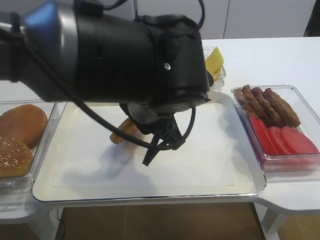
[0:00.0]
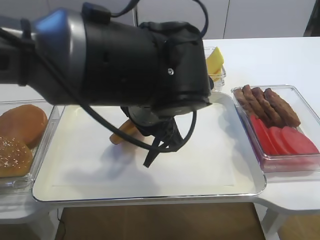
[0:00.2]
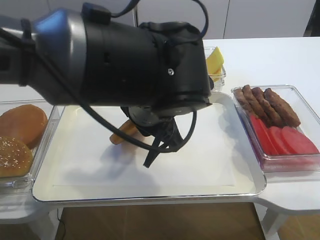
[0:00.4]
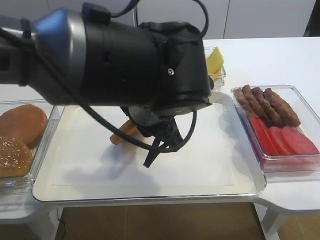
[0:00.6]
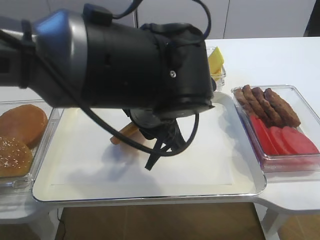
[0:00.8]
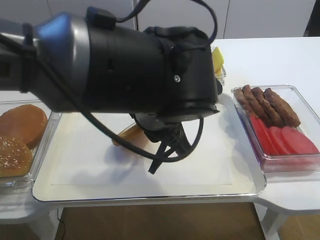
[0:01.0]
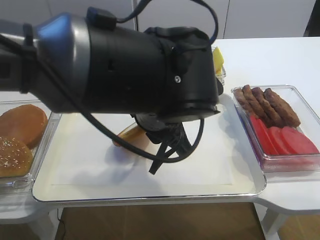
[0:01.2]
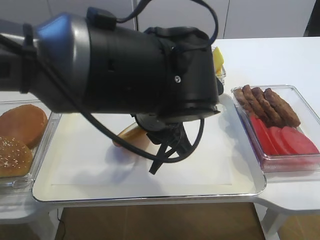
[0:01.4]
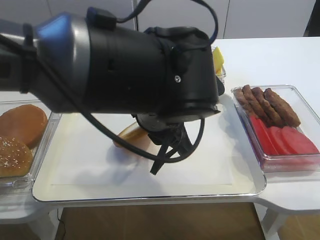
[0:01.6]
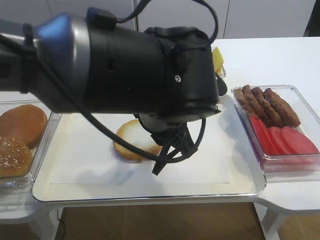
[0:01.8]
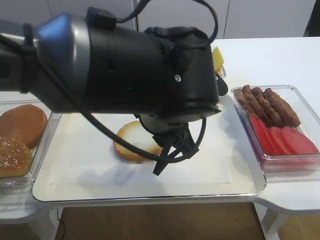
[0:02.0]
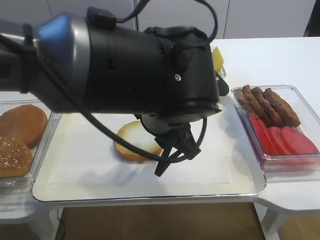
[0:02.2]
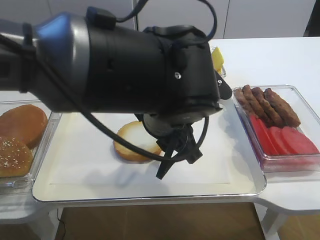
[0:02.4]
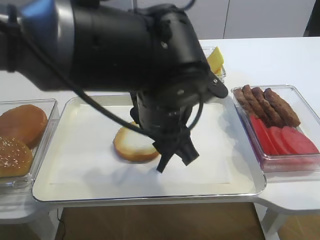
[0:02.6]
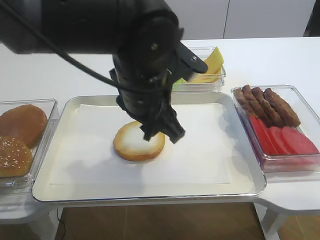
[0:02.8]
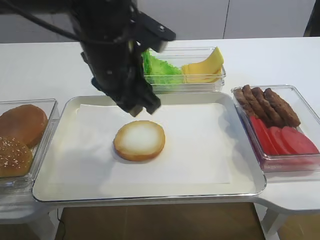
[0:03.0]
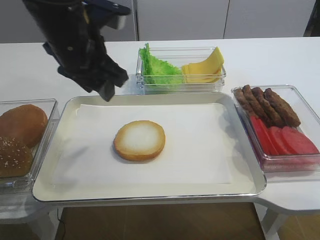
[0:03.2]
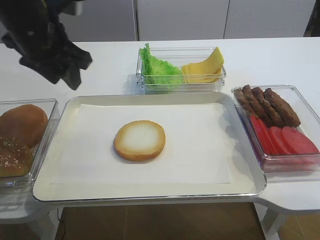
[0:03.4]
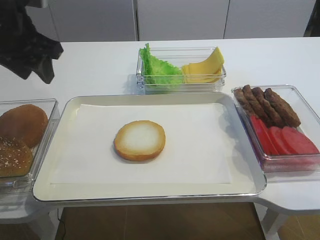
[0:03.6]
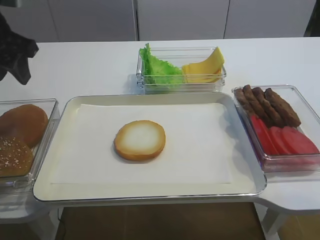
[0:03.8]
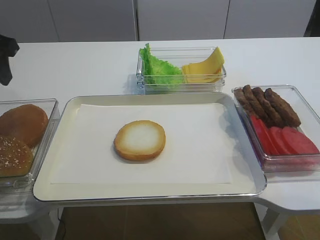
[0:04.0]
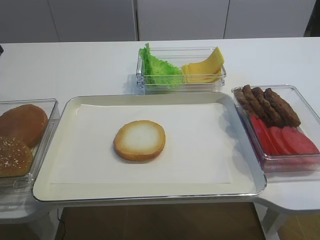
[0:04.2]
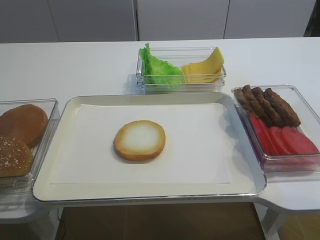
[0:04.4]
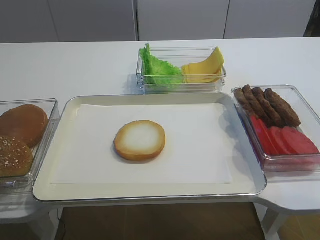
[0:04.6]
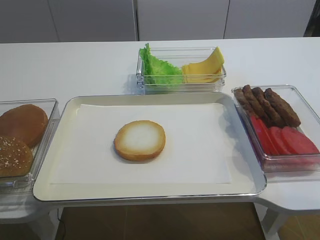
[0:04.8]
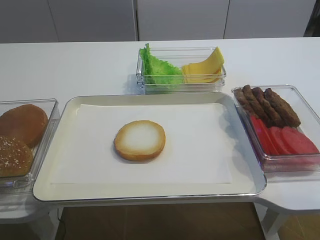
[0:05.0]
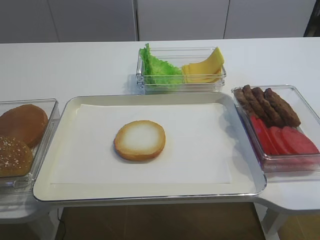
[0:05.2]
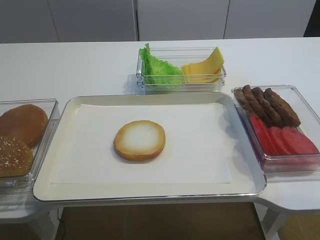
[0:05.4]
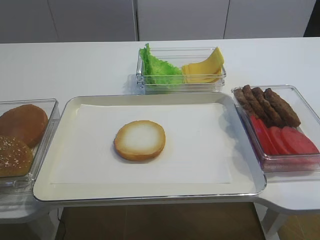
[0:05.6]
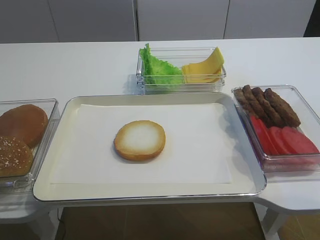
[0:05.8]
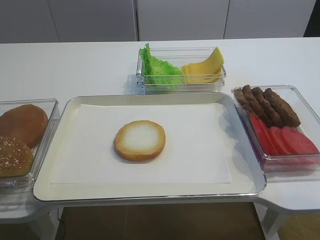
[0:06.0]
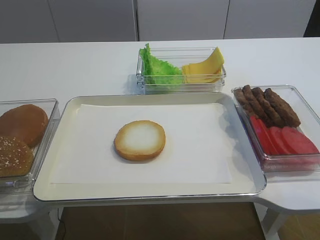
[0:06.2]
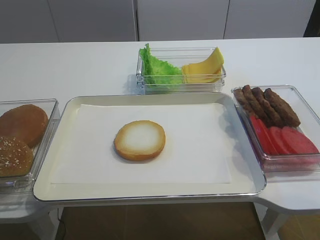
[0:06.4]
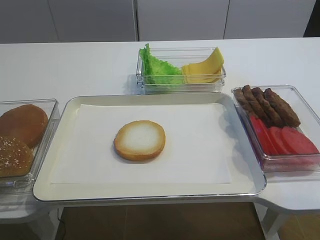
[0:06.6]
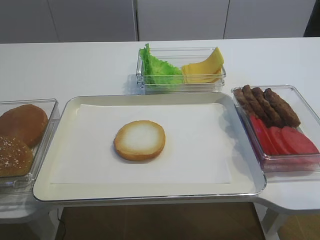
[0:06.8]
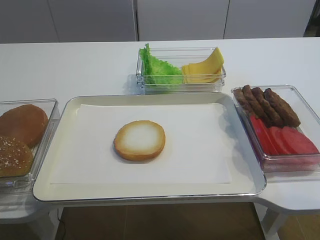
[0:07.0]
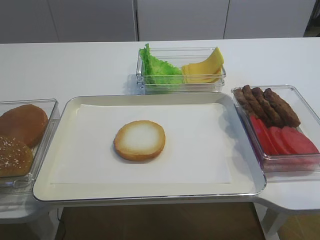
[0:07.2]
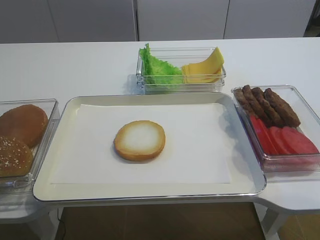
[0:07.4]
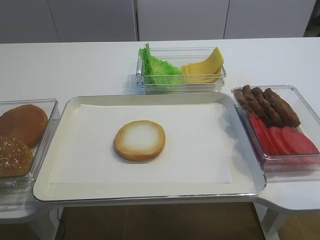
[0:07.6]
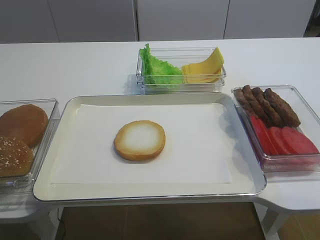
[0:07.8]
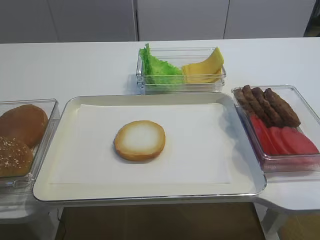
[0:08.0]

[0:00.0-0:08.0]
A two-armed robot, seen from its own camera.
Step, 0:00.0 to 0:02.0: Place the bread slice on the tray with the left gripper.
0:00.0 to 0:01.6: The left gripper opens its fingers.
0:01.6 to 0:03.2: The left gripper moves to the left and forward, approximately 15 cm.
0:03.2 to 0:04.8: The left gripper is displaced to the left and backward by approximately 20 cm.
0:06.4 to 0:08.0: The two grippers keep their place.

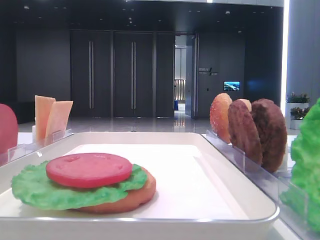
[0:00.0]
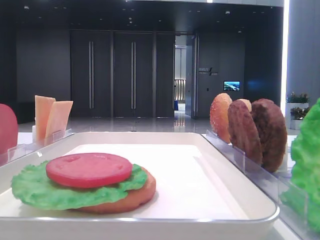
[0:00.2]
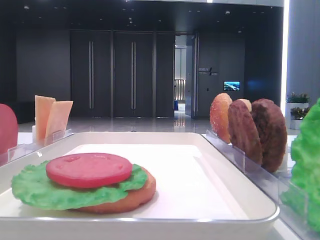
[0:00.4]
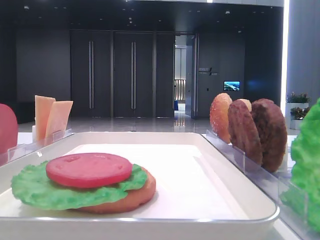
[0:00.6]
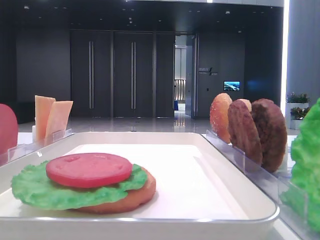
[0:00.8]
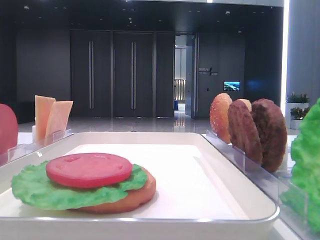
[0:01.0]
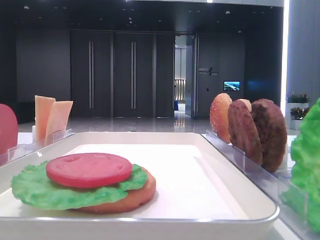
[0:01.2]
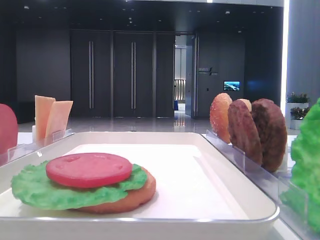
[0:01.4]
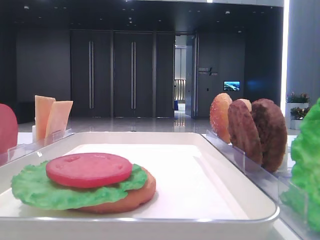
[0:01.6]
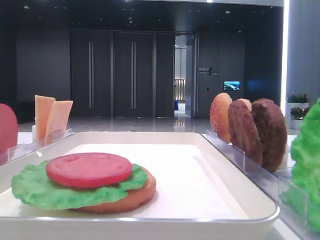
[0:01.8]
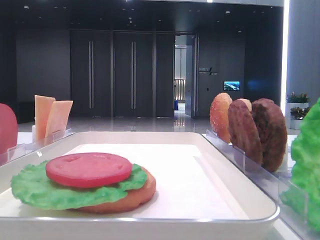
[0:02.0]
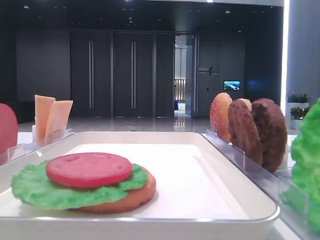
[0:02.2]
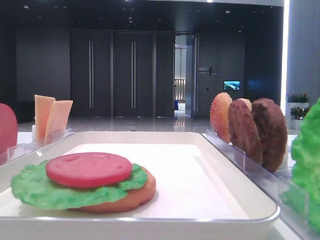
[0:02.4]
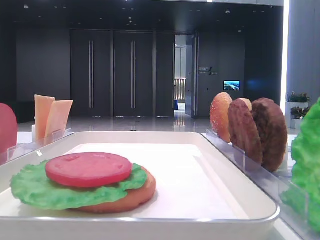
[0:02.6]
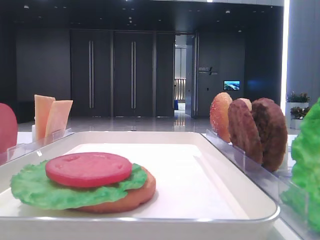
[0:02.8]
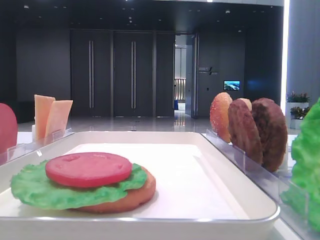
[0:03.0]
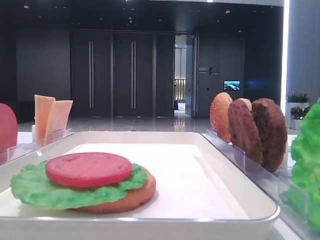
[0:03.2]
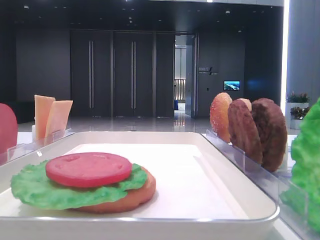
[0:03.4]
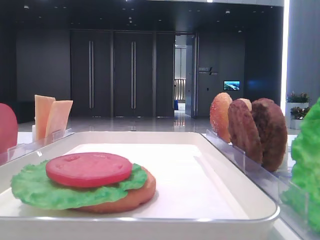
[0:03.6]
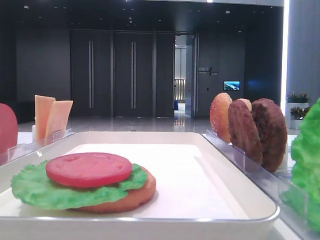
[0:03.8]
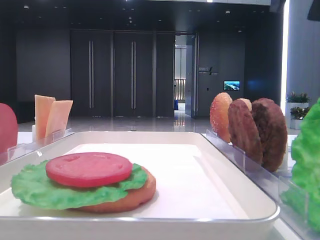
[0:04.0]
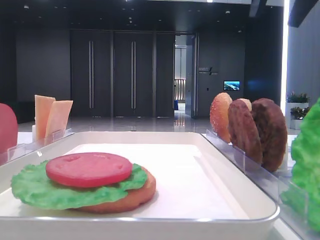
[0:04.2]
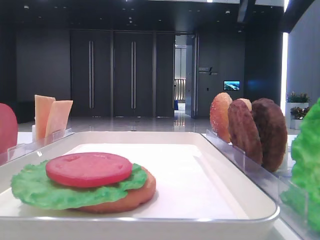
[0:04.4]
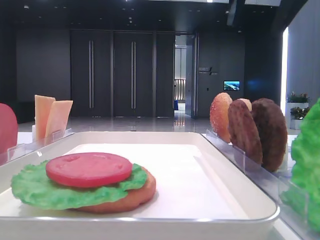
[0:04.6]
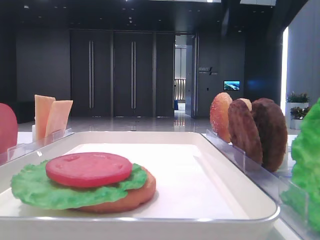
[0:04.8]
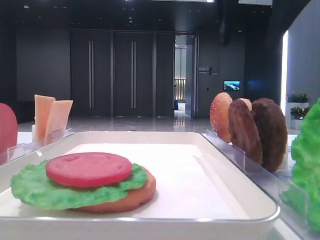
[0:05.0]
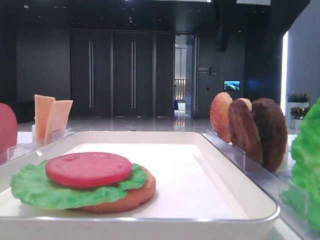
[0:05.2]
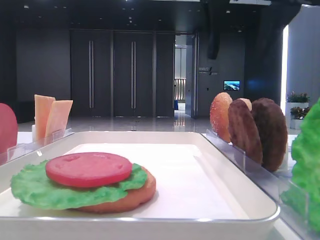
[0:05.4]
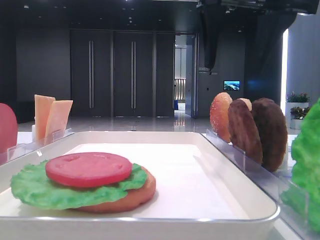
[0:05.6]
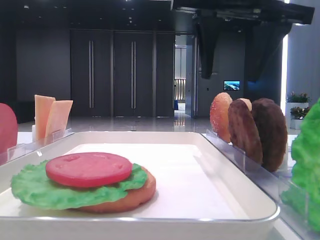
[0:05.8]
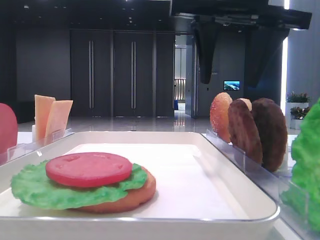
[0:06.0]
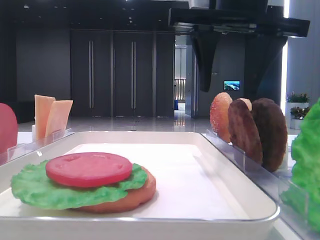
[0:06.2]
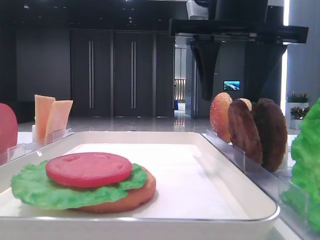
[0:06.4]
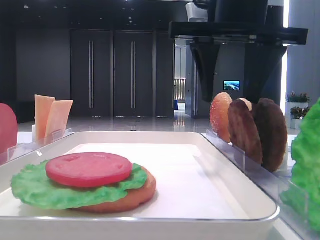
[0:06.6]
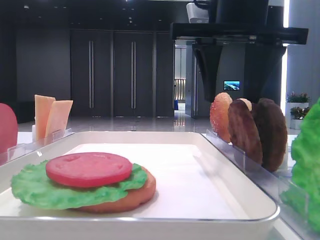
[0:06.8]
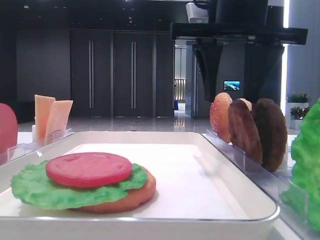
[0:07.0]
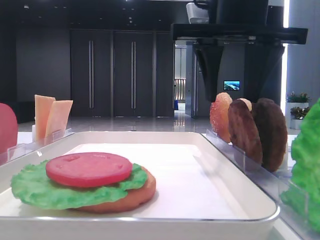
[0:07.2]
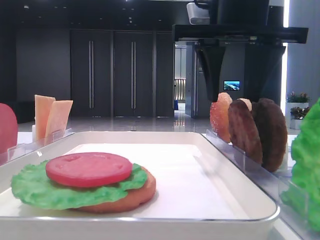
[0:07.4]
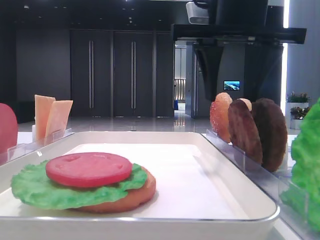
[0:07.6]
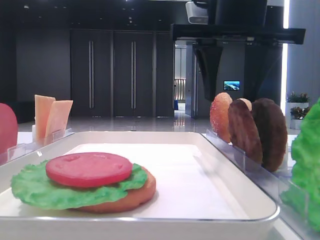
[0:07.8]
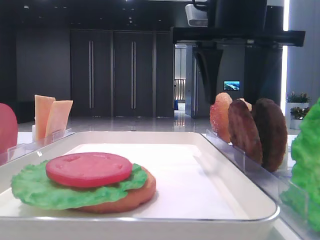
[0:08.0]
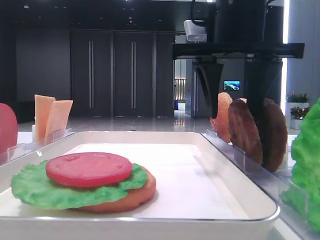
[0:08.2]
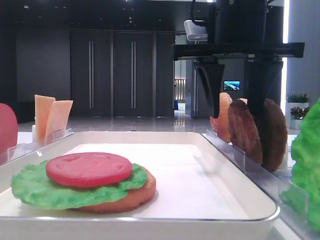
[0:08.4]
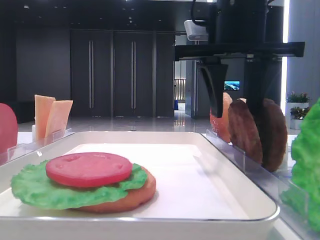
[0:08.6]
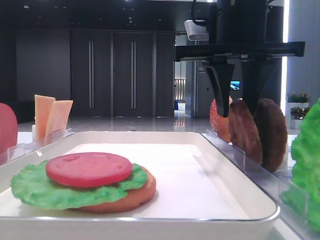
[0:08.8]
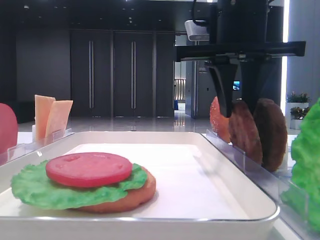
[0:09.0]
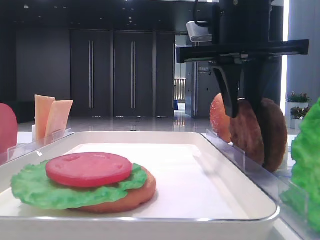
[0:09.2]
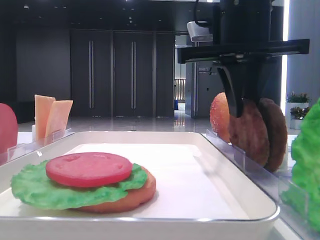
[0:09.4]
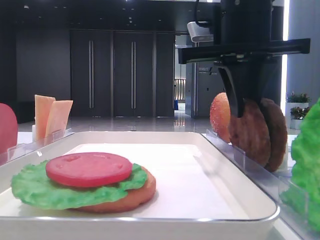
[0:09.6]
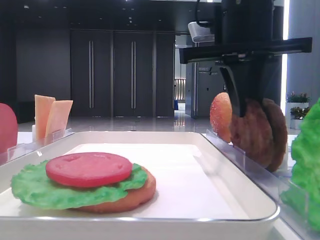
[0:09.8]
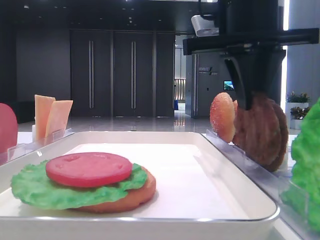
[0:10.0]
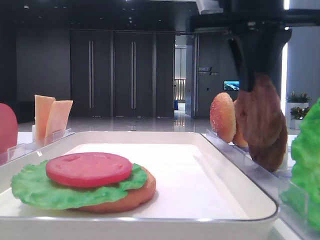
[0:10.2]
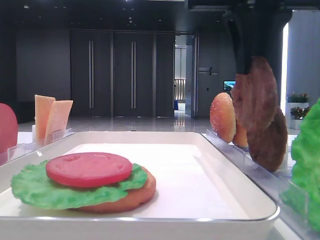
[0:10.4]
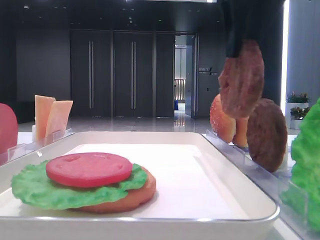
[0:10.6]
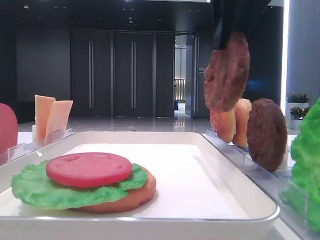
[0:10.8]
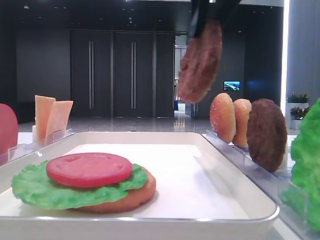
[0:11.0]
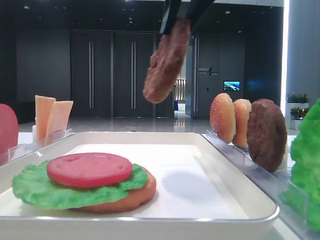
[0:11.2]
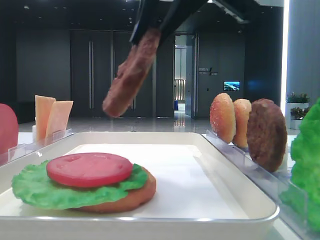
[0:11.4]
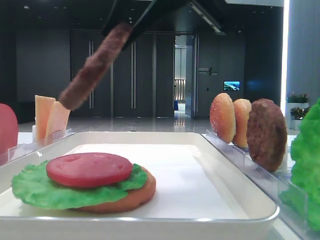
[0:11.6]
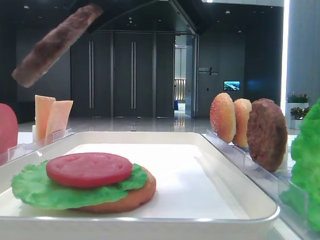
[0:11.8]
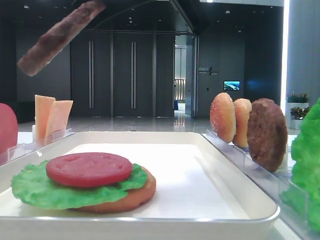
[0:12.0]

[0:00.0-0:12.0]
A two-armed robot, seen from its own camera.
Step, 0:00.0 to 0:09.8: Grab the patty with the right hand.
0:01.6 to 0:03.0: The right gripper goes approximately 20 cm forward.
0:03.0 to 0:04.4: The right gripper moves to the left, roughly 15 cm.
0:04.4 to 0:06.0: The right gripper goes roughly 10 cm downward and to the left.
0:06.0 to 0:07.6: The grippers move only a little.
0:07.6 to 0:09.0: The right gripper closes up.
0:09.0 to 0:10.4: The right gripper moves upward, some 5 cm.
0:10.4 to 0:12.0: The right gripper shifts approximately 10 cm to the left and backward.

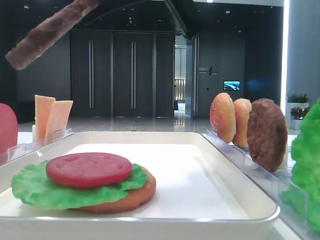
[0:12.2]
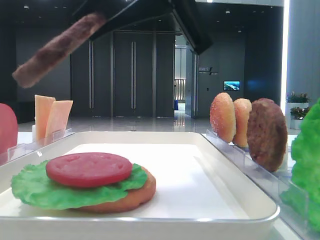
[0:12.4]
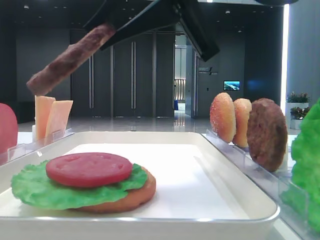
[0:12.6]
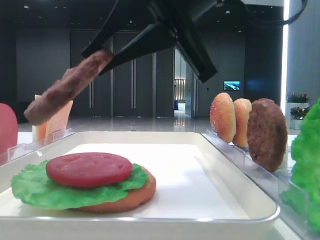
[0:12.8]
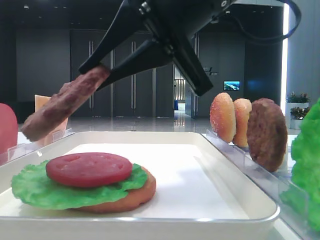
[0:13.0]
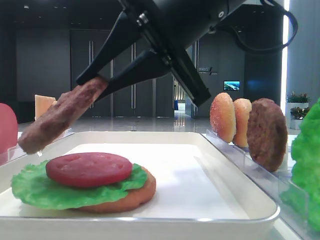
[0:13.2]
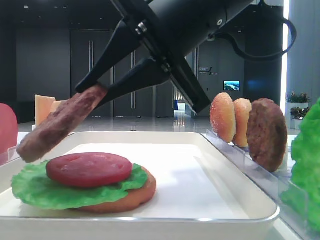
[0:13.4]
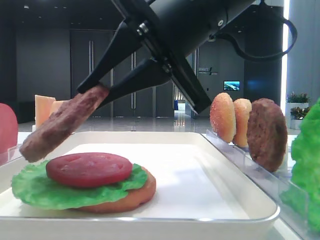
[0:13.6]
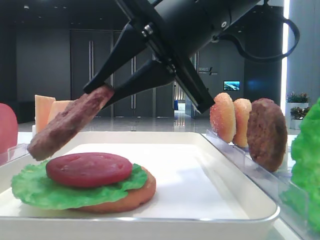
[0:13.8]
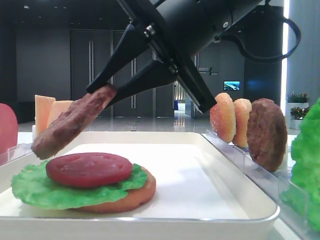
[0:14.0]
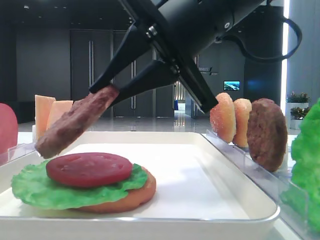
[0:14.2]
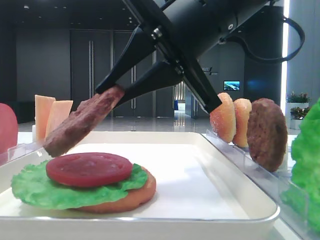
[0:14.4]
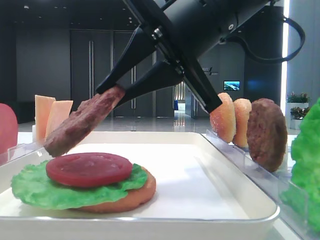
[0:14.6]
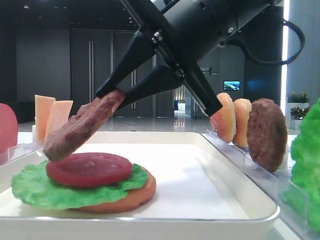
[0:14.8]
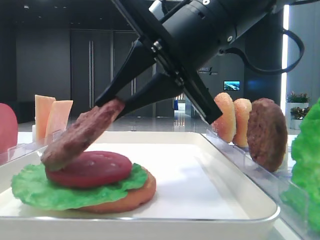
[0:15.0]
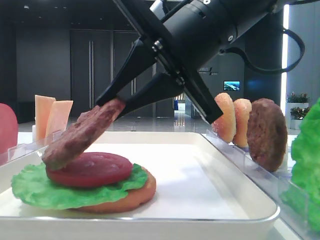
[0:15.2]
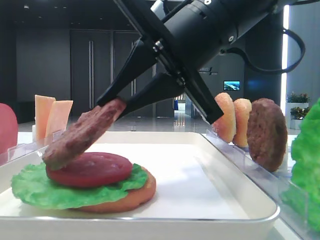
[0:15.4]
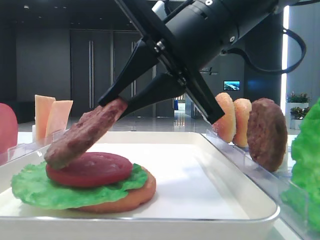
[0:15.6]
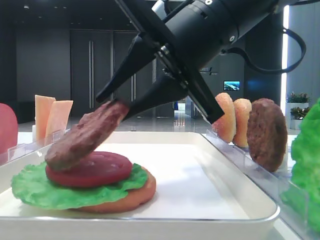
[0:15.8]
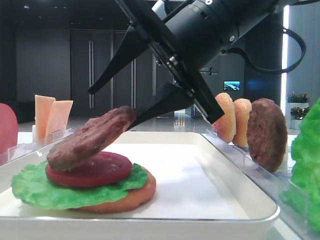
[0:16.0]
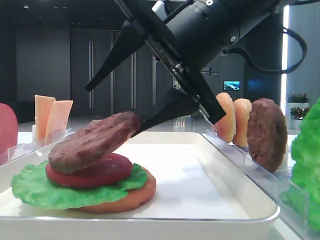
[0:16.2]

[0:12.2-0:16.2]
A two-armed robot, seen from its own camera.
0:12.2 to 0:13.6: The right gripper heads downward, covering about 5 cm.
0:13.6 to 0:14.8: The grippers stay close to where they were, moving slightly.
0:14.8 to 0:16.2: The right gripper opens up.
